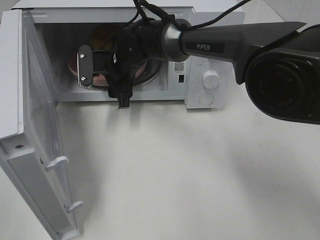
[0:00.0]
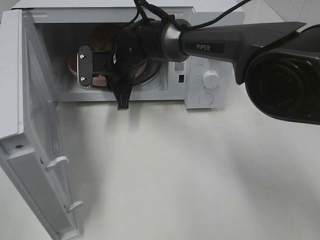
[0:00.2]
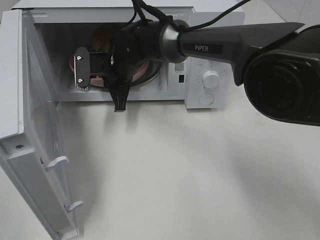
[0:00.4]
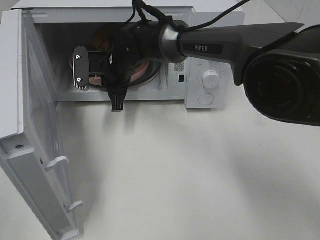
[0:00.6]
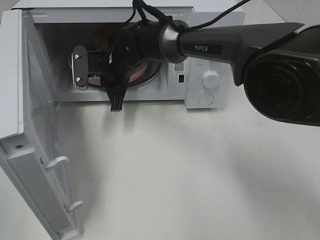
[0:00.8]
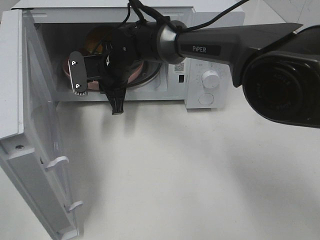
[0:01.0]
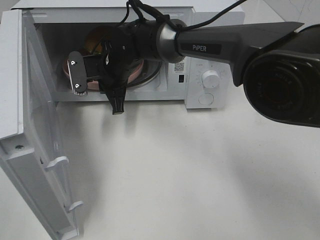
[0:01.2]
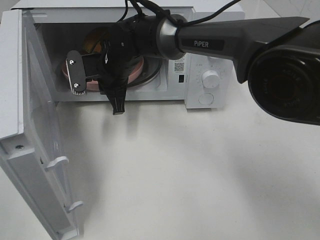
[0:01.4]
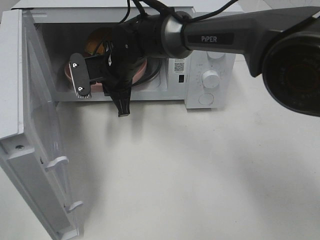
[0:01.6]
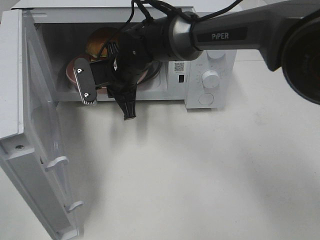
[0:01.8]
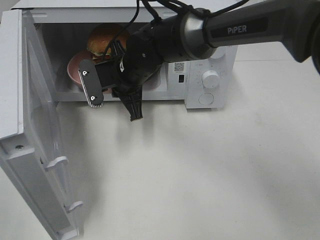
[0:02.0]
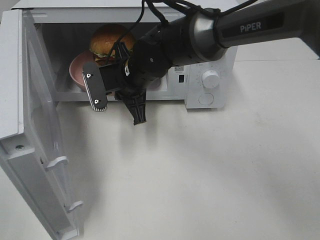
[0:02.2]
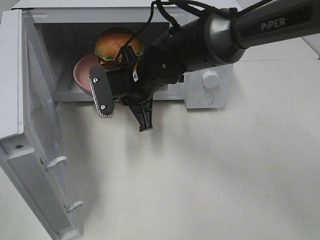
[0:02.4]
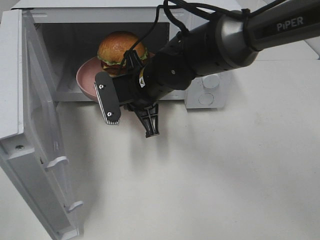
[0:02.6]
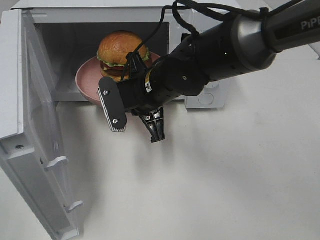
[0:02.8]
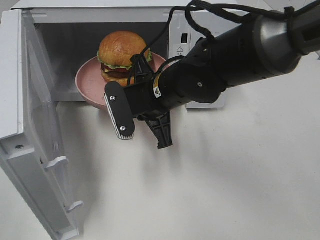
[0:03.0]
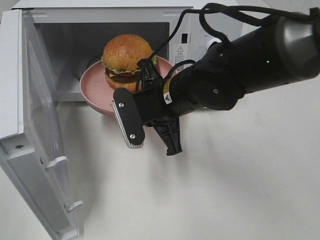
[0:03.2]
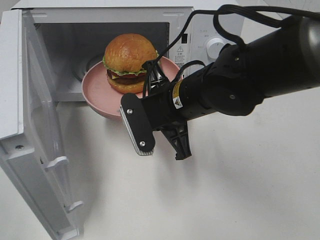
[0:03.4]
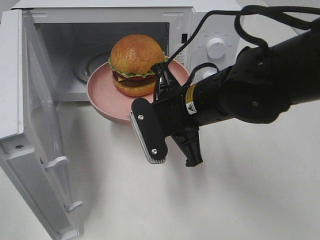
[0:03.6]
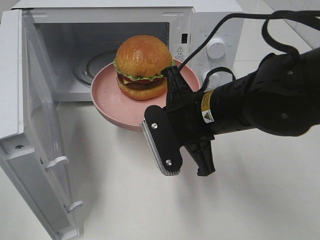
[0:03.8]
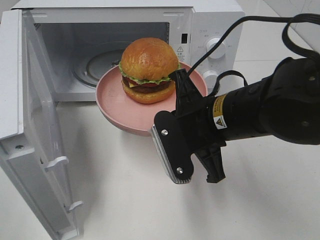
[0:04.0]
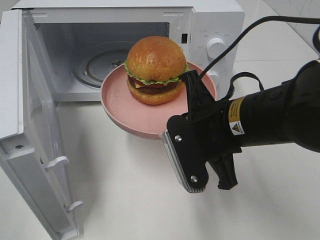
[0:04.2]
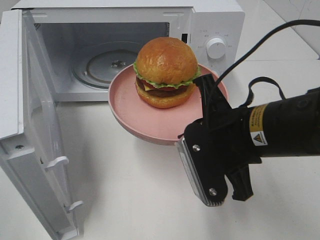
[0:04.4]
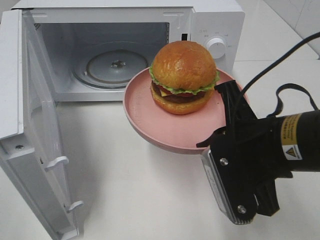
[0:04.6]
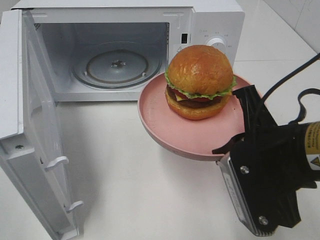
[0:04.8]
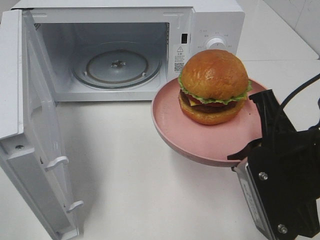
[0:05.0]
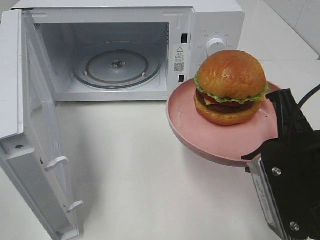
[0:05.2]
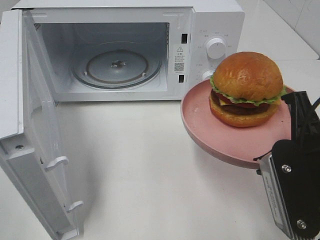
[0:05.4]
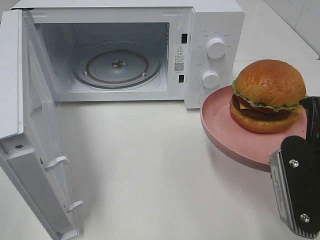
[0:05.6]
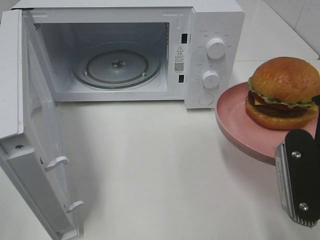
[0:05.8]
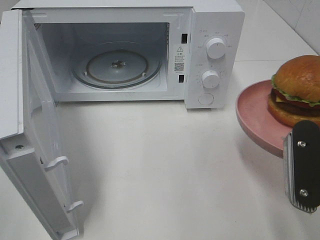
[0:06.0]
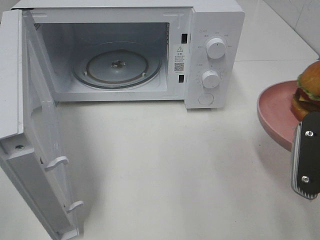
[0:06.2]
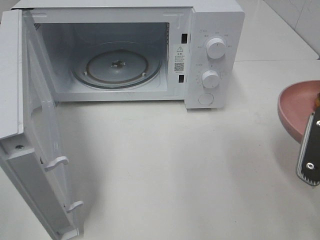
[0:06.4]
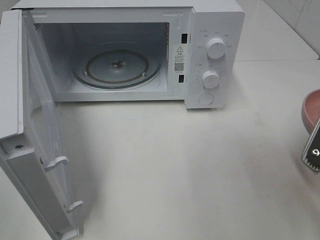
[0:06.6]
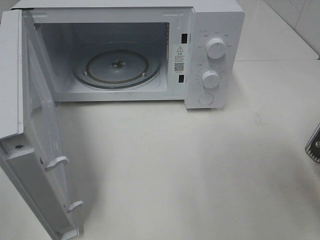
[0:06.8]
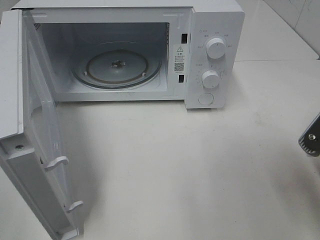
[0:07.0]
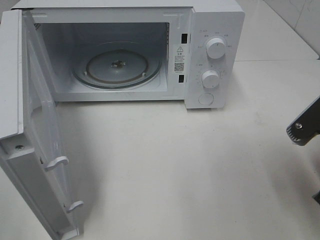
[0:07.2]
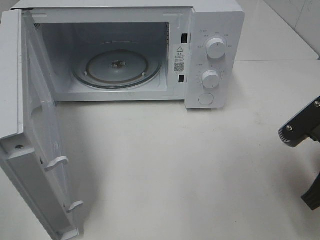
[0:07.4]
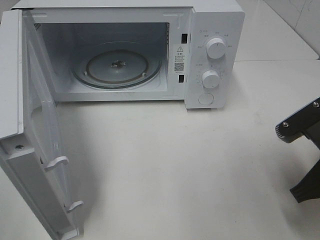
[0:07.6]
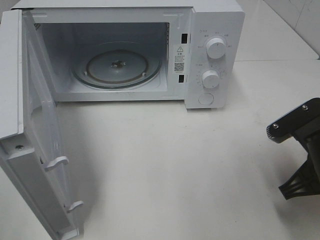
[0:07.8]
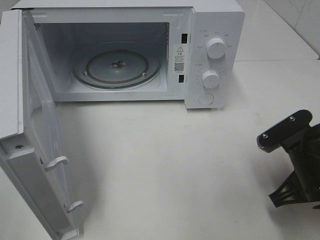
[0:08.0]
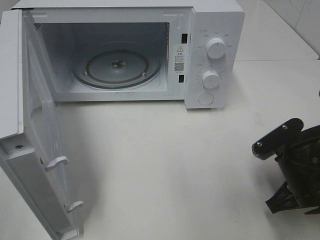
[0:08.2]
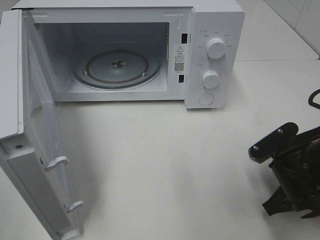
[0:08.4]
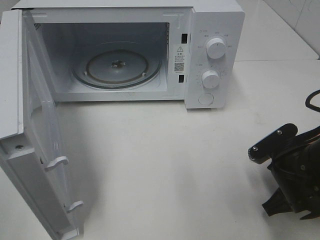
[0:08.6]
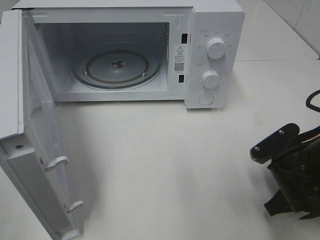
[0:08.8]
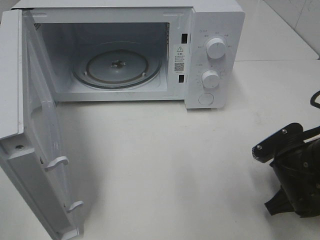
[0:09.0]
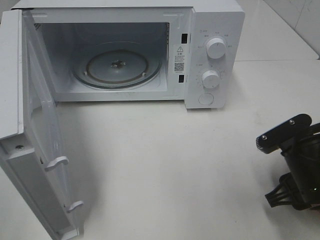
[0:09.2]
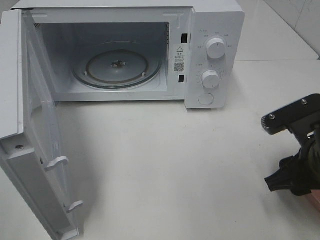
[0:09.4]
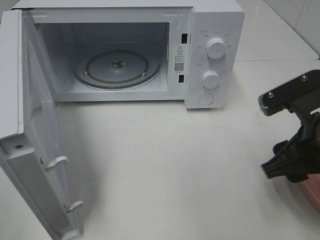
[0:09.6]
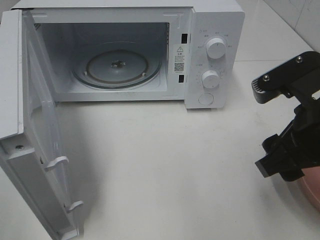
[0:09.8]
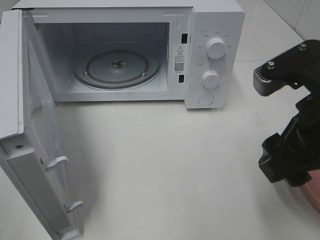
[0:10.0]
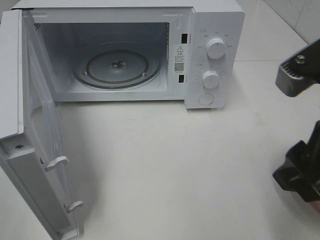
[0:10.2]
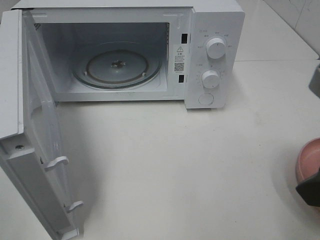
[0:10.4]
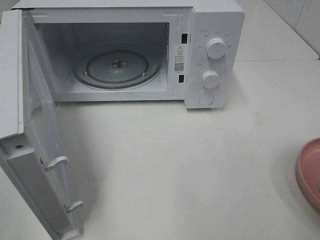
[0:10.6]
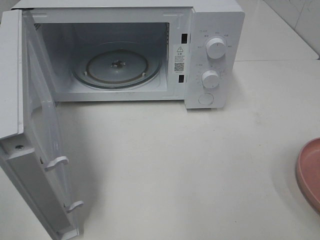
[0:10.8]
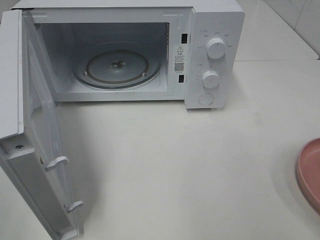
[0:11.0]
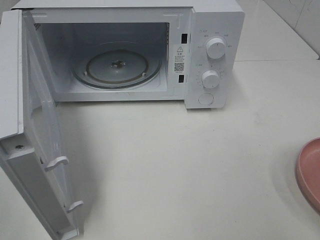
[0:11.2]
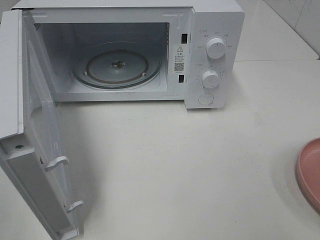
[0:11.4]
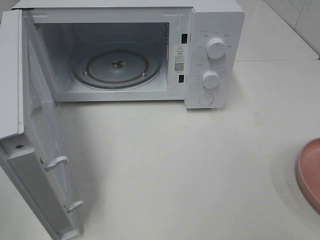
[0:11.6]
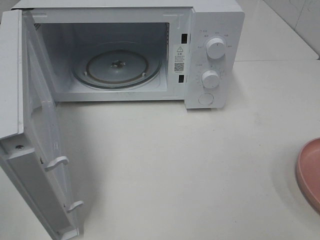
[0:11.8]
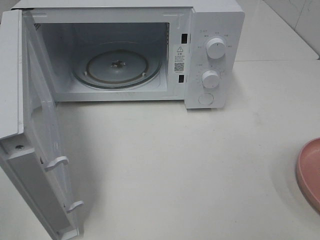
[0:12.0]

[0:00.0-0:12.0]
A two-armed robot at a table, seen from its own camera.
Task of the whole recording: Heat the burger.
Step, 0:00.4 to 0:09.2: Right hand: place the plate on the table.
0:00.0 to 0:01.6: The right gripper closes.
0:01.6 to 0:03.0: The right gripper is displaced backward and to the right by roughly 15 cm.
0:03.0 to 0:04.4: The right gripper is displaced backward and to the right by approximately 15 cm.
0:04.4 to 0:06.0: The right gripper travels to the right and backward by some 10 cm.
0:06.0 to 0:07.6: The right gripper travels downward by approximately 5 cm.
0:07.6 to 0:09.0: The right gripper moves downward, roughly 5 cm, and opens.
0:09.0 to 0:10.4: The right gripper moves upward, some 20 cm.
0:10.4 to 0:12.0: The right gripper travels backward and to the right by approximately 15 cm.

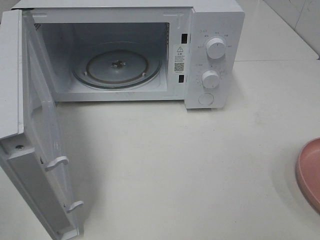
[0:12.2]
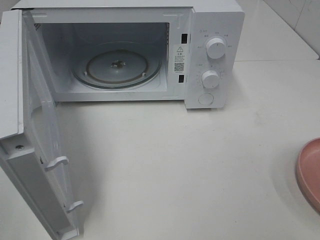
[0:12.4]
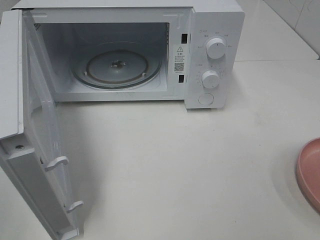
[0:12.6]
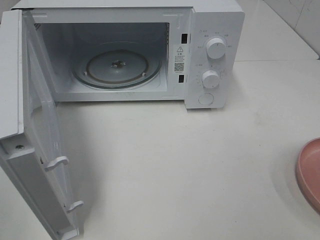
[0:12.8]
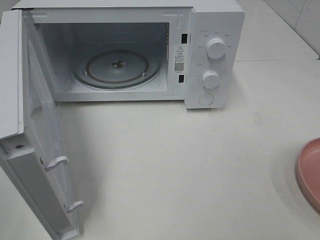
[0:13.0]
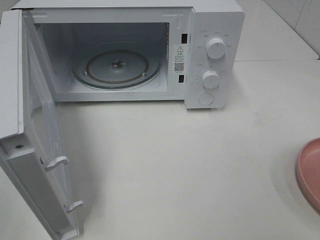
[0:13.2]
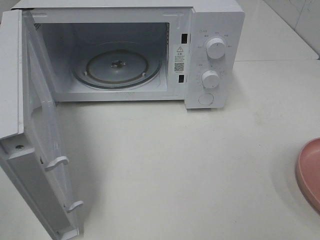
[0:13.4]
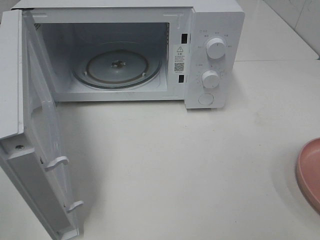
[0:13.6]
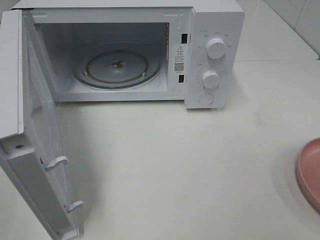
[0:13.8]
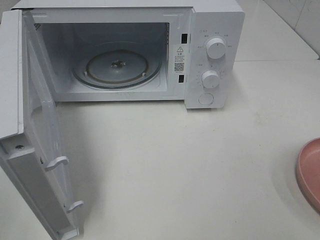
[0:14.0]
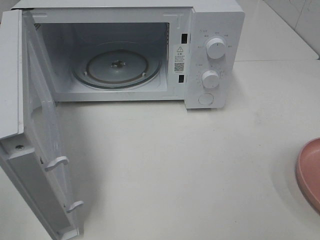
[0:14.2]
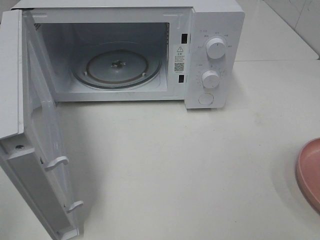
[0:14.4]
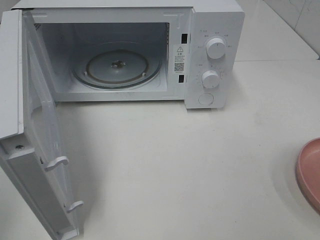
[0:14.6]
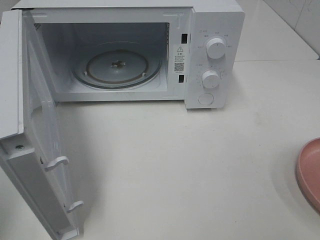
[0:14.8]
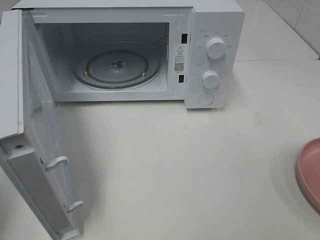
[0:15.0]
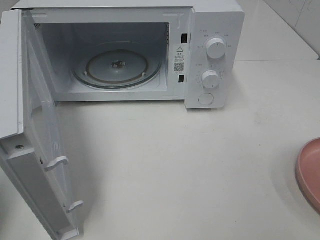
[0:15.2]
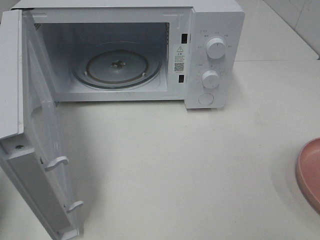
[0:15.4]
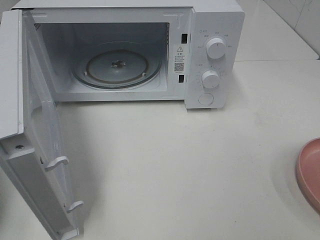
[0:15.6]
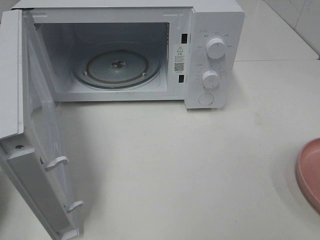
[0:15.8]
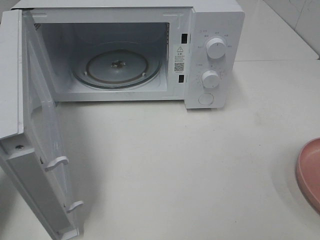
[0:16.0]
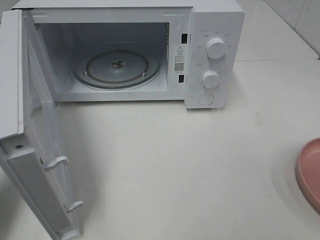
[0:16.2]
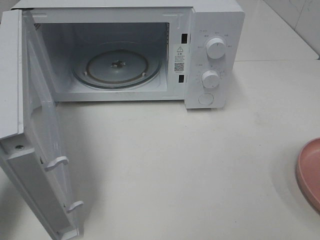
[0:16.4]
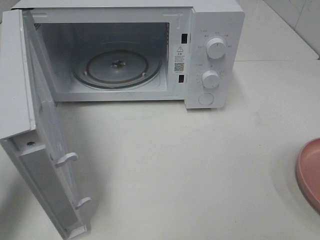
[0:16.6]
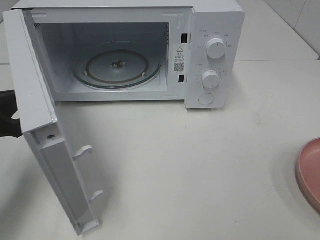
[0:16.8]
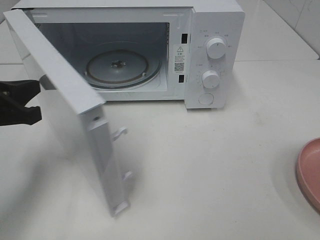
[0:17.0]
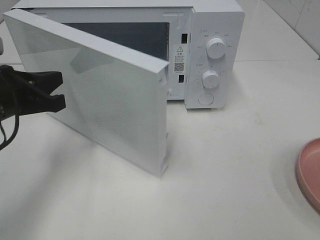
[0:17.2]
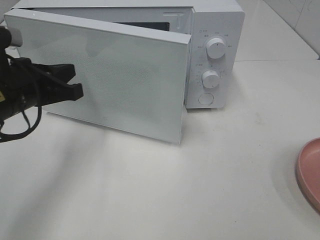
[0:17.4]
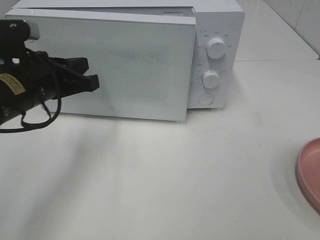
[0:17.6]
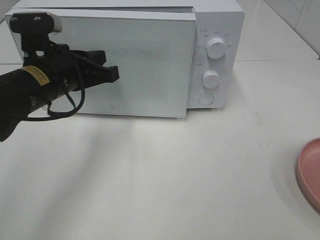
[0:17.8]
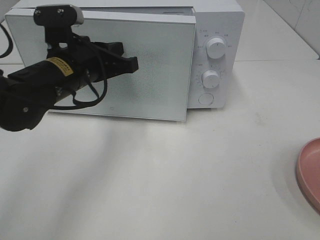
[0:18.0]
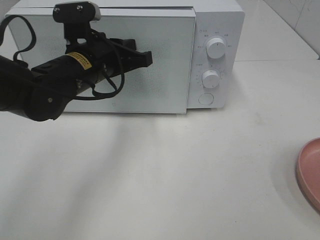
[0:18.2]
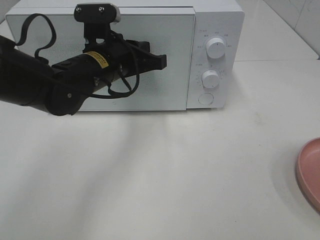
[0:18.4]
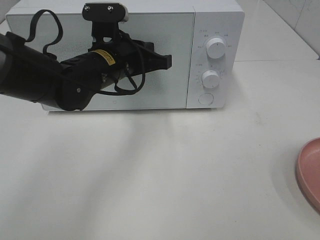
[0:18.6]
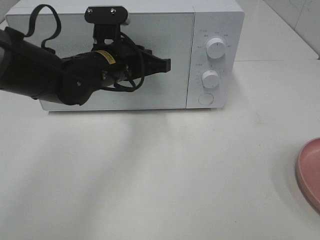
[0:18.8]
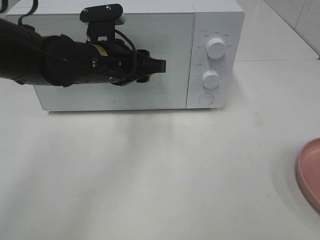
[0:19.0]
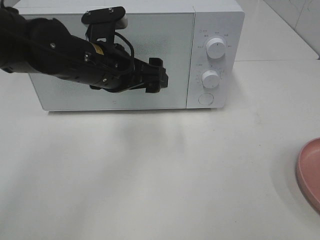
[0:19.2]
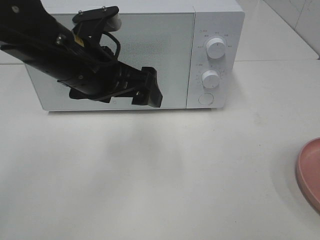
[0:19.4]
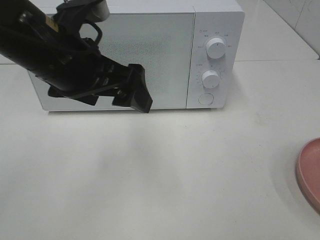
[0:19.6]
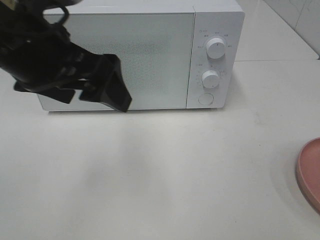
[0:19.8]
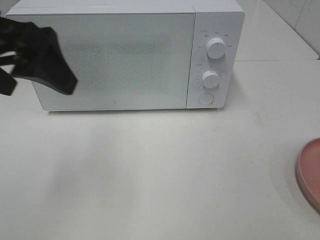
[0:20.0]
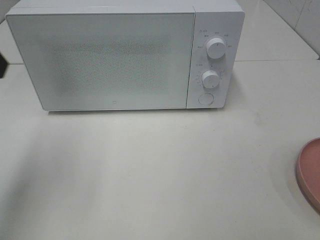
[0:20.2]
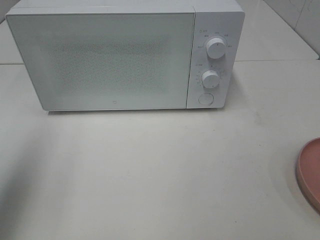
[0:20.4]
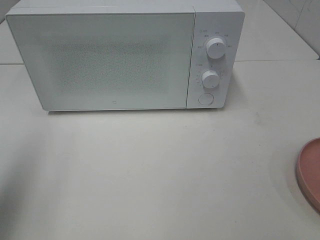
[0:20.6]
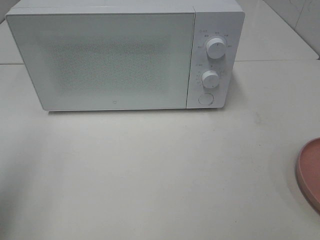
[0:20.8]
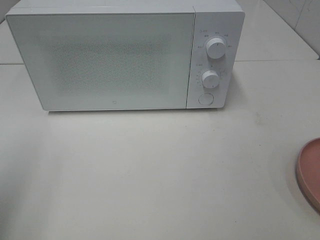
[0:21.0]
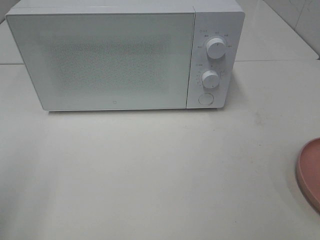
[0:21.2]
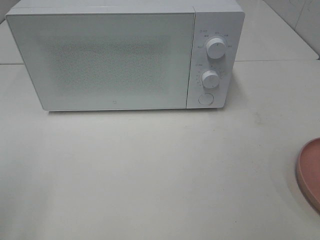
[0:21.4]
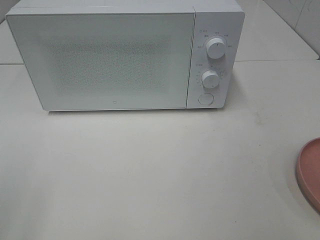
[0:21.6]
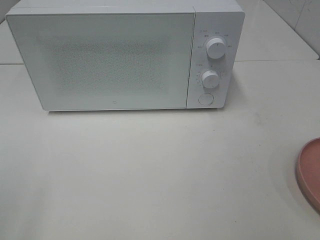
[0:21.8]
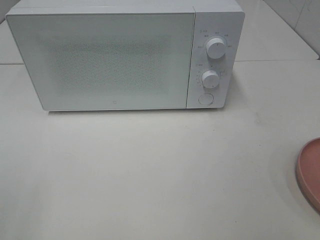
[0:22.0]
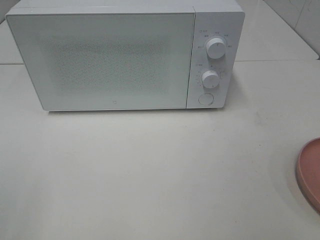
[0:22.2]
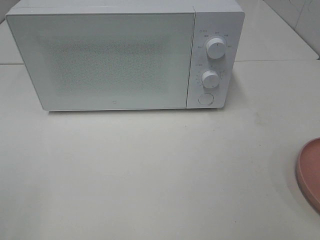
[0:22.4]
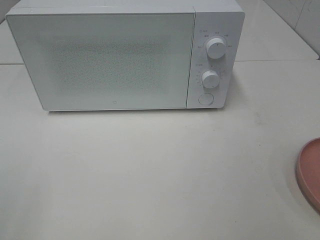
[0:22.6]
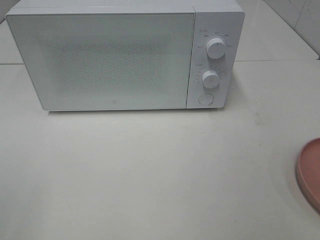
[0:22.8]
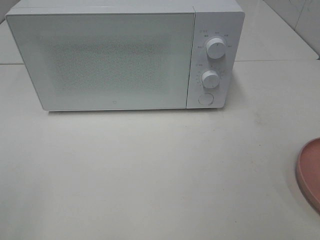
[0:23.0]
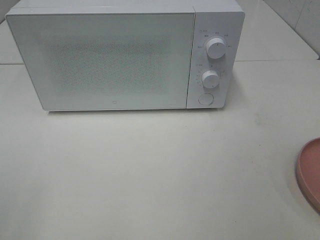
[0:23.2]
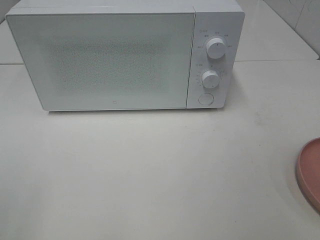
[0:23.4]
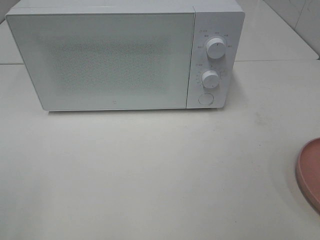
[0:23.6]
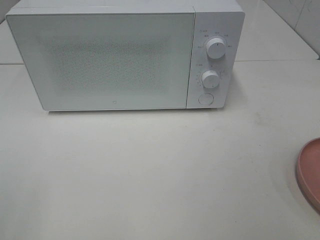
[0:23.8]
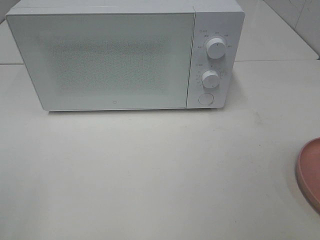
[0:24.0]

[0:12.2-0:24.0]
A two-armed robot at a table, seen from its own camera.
Task of the whole recording: Heat the burger.
Step, 0:12.2 to 0:18.8: Left hand: close the microwave door.
0:12.2 to 0:13.6: Both grippers stay about where they are.
0:15.2 to 0:16.6: The left gripper moves downward, forward and to the right, some 15 cm.
0:16.6 to 0:18.2: The left gripper is displaced to the right and forward by some 20 cm.
0:18.2 to 0:19.6: The left gripper moves upward and backward, some 10 cm, and opens up.
0:19.6 to 0:21.0: The left gripper goes roughly 25 cm to the left and backward.
0:22.6 to 0:24.0: The two grippers keep their place.
